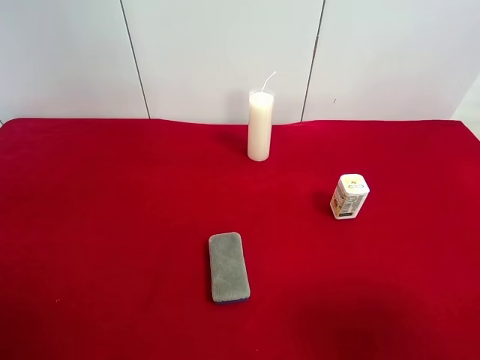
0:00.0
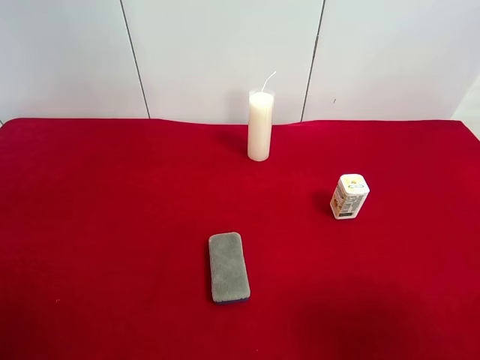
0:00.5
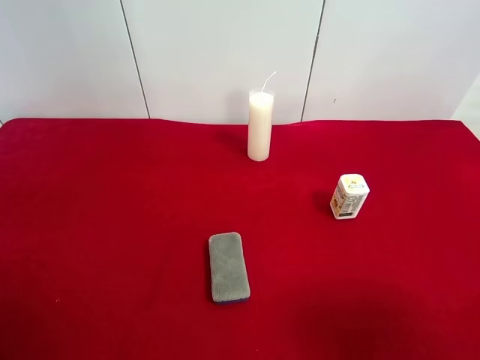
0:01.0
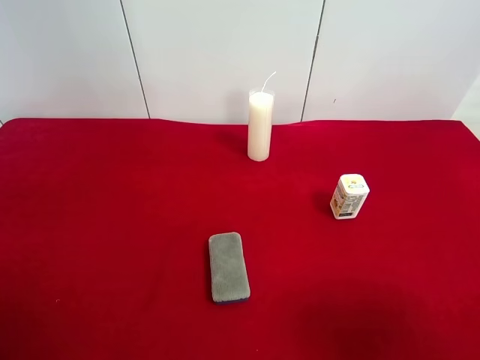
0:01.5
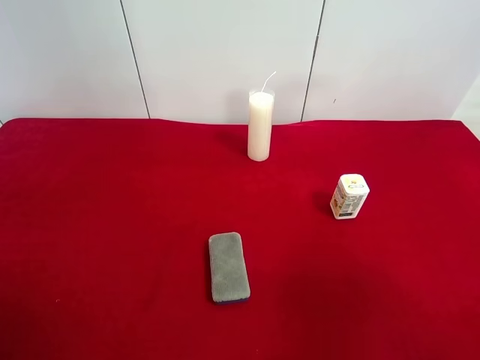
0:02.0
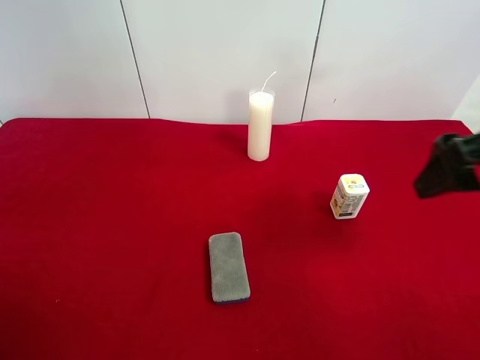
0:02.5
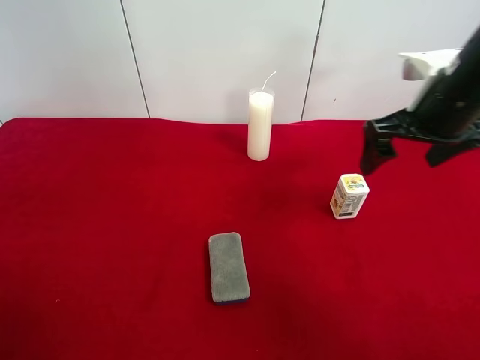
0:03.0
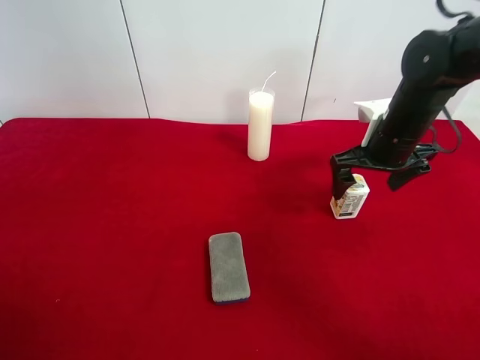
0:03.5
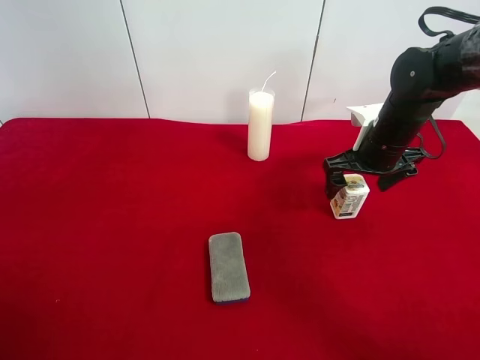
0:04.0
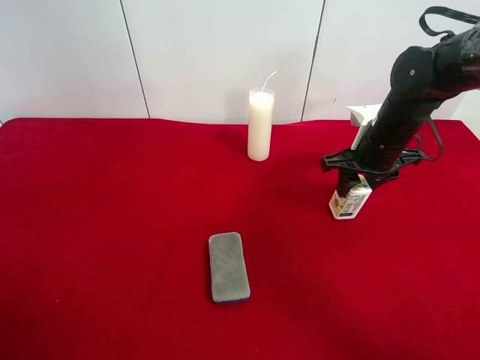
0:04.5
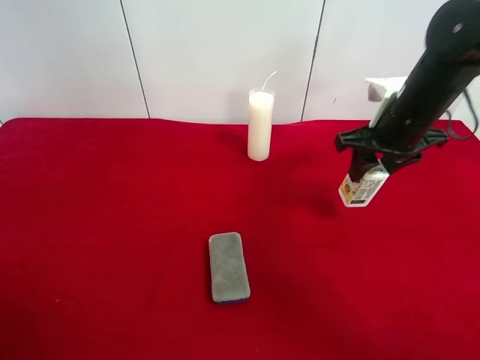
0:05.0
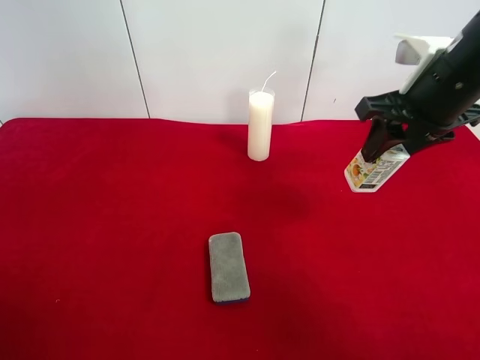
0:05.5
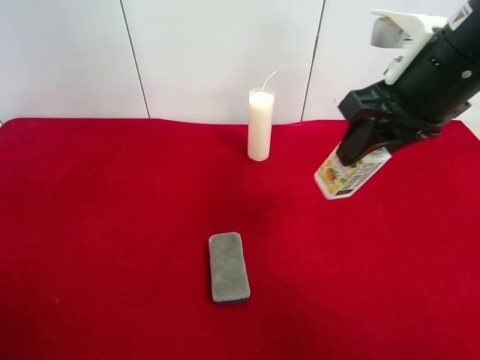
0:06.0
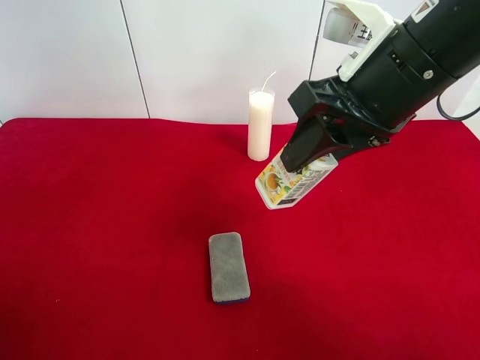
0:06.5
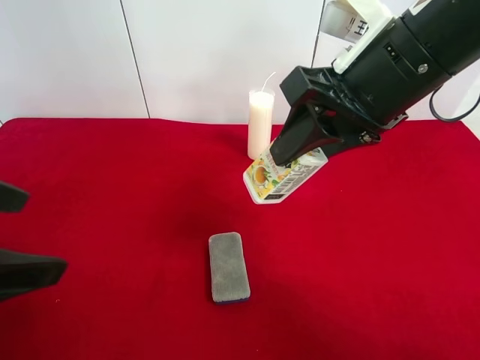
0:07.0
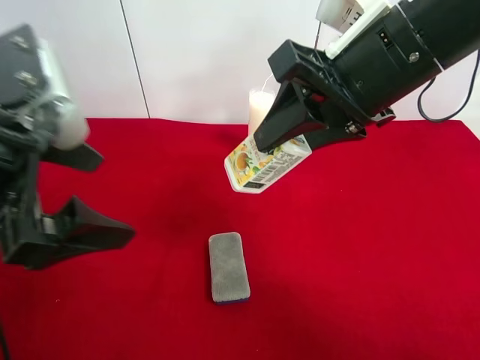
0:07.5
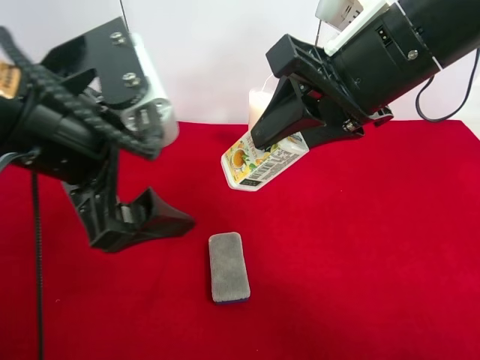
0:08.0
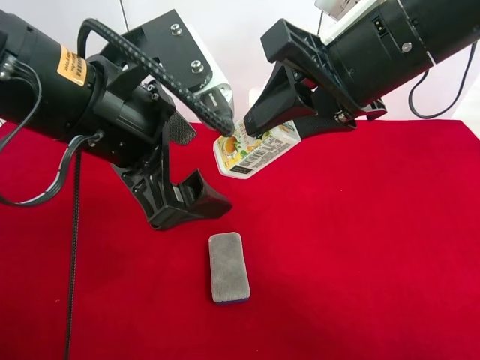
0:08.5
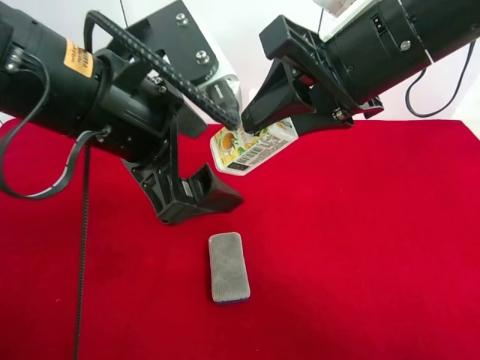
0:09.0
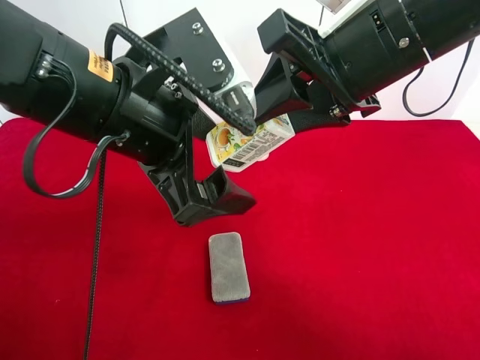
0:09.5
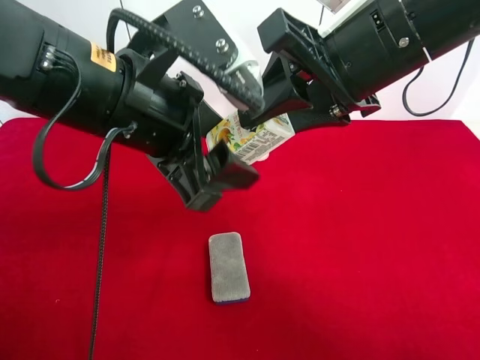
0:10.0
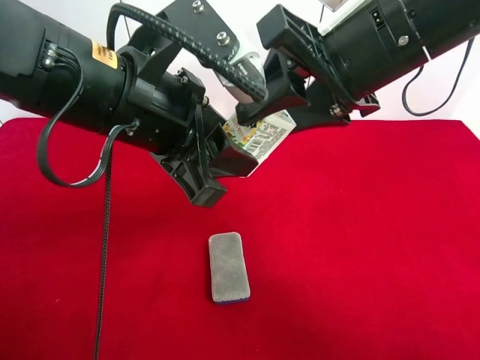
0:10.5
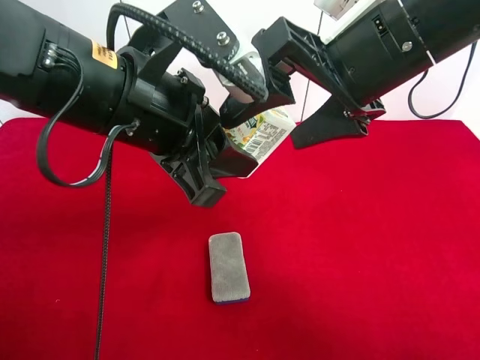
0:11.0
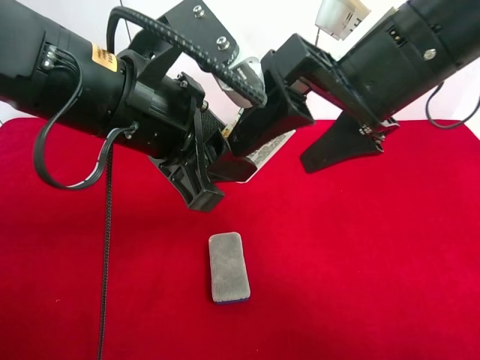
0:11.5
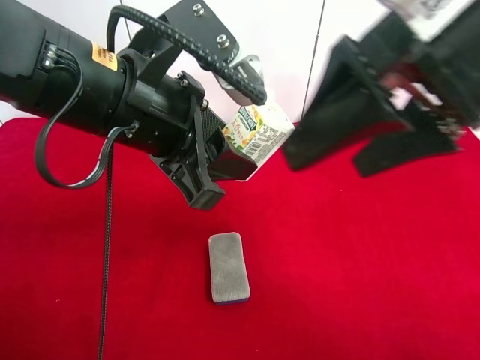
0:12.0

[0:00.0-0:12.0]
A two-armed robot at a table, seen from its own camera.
Task of the whole recording: use the right gripper to pick up the item and transfer it from the right gripper to the left gripper.
Step, 0:00.0 to 0:04.0: Use the right gripper to grab the square chewing gum on the right side of the table.
Step, 0:04.5 to 0:10.5: Pass the square chewing gum to the left gripper.
0:02.0 to 0:04.0: The right gripper moves forward and downward, approximately 35 cm.
0:04.0 to 0:06.0: The right gripper travels upward and backward by about 20 cm, and closes.
0:06.0 to 0:08.0: The left gripper goes about 20 cm to the right and forward; the right gripper moves to the left, about 5 cm.
0:08.0 to 0:10.0: The left gripper ends up some 5 cm from where it was, and closes its fingers.
0:10.0 to 0:12.0: The right gripper travels backward by about 5 cm, and opens.

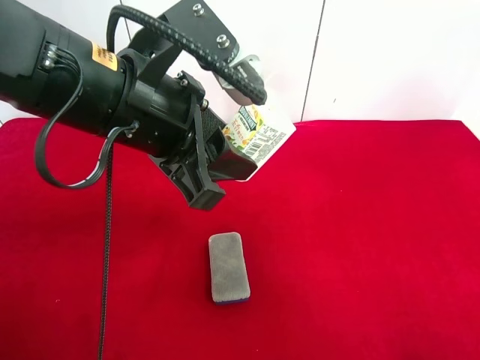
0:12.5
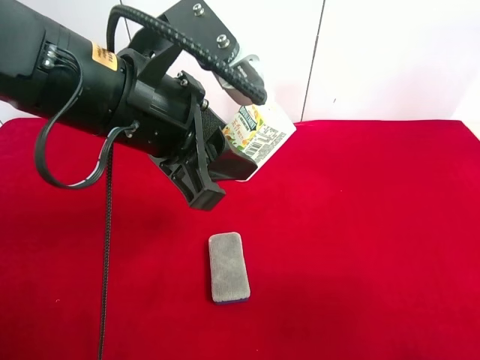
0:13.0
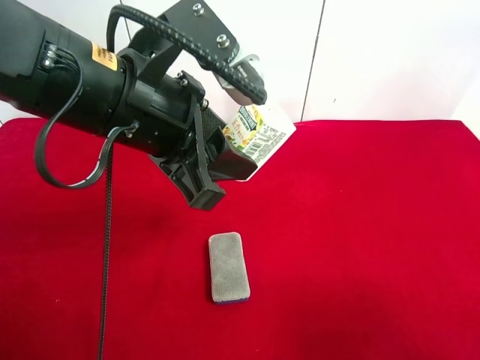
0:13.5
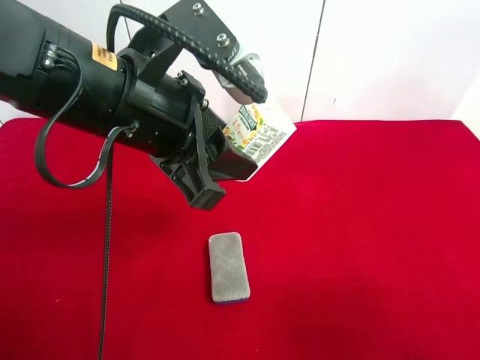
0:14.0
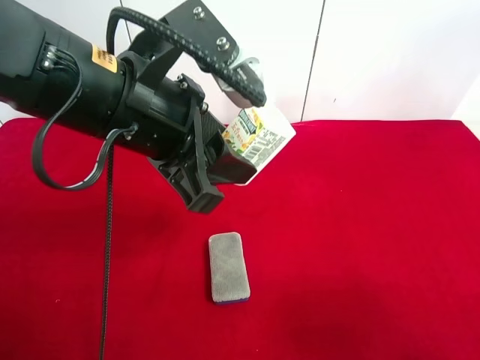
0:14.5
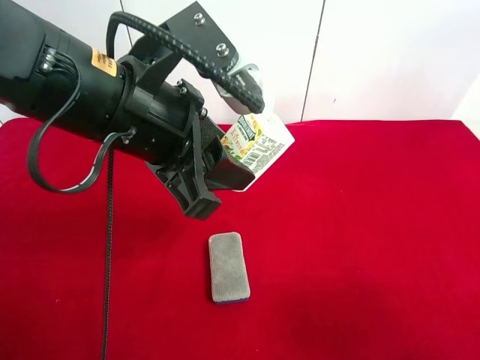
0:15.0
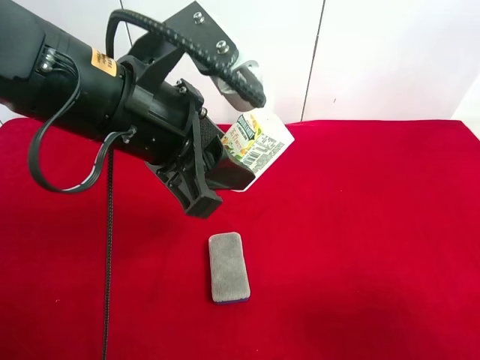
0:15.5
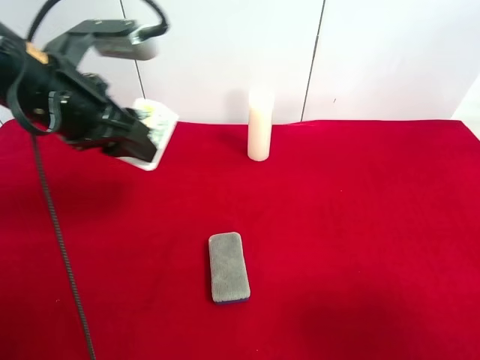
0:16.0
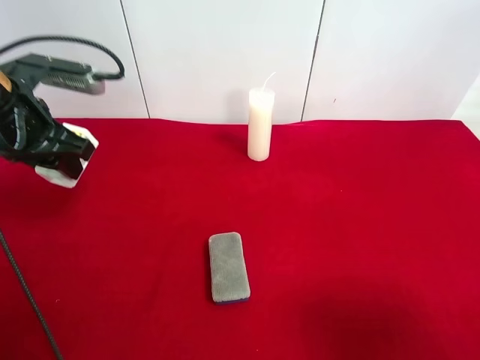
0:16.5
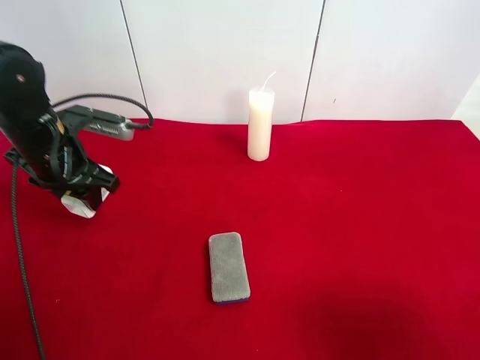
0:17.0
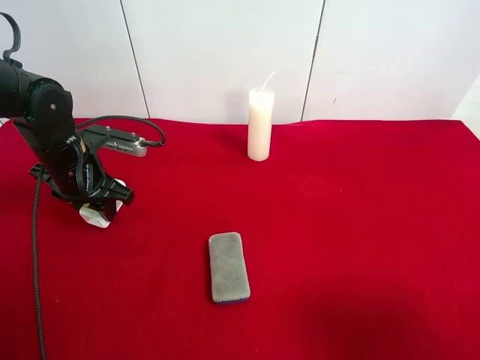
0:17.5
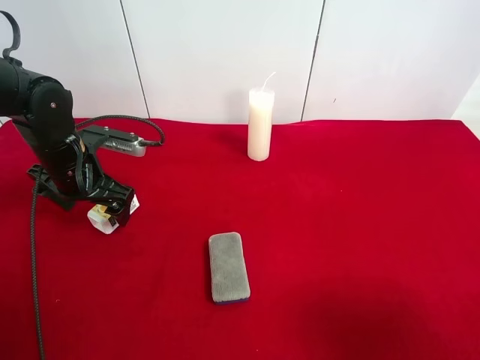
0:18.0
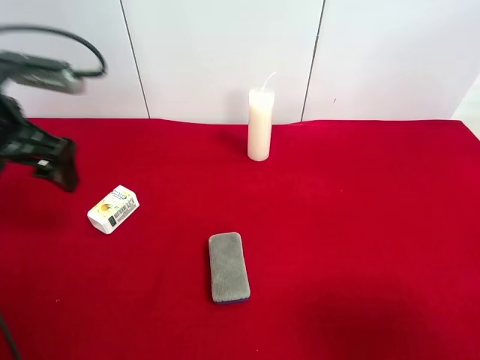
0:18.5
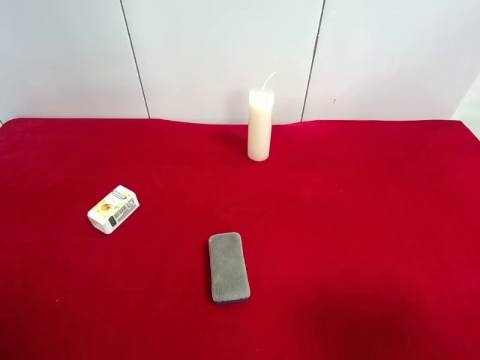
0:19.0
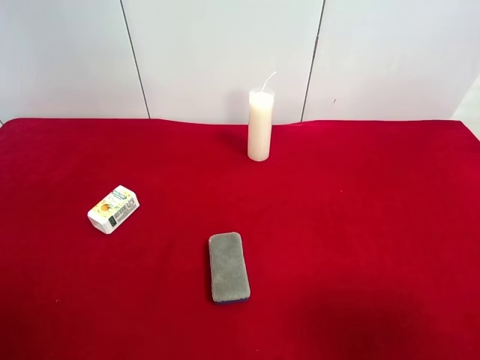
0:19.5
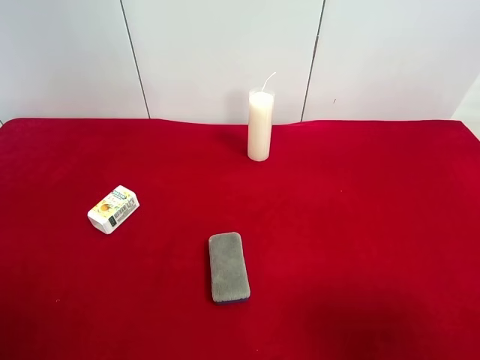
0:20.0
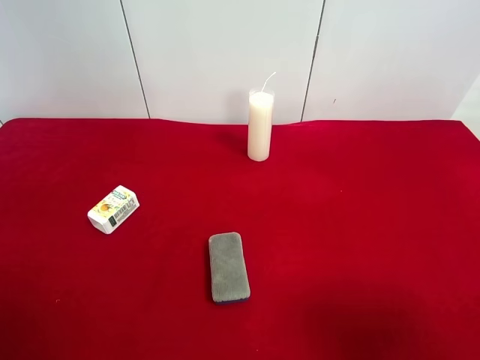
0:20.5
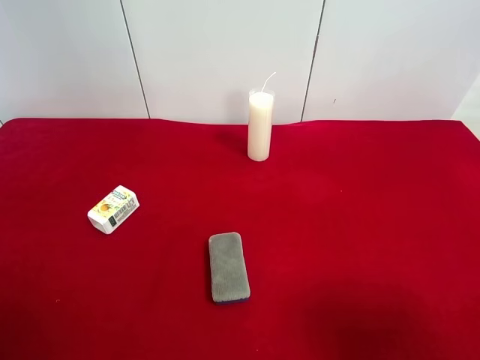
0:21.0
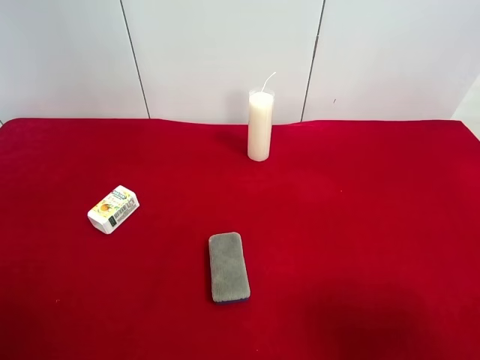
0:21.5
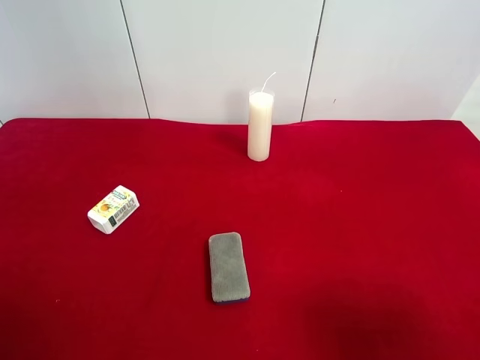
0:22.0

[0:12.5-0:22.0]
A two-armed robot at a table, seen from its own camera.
Task of the whole recording: use the right gripper to pick up the item and transfer it from the right gripper to the left gripper.
Step, 0:12.5 to 0:17.5: The left gripper places square chewing gum on the left side of the table.
0:12.5 to 0:14.5: The right gripper is displaced downward by about 15 cm.
0:14.5 to 0:16.5: The left gripper goes roughly 20 cm to the left and forward.
0:16.5 to 0:18.0: The left gripper goes roughly 10 cm downward, and opens its fingers.
0:18.0 to 0:20.0: The left gripper moves backward and upward, roughly 35 cm.
